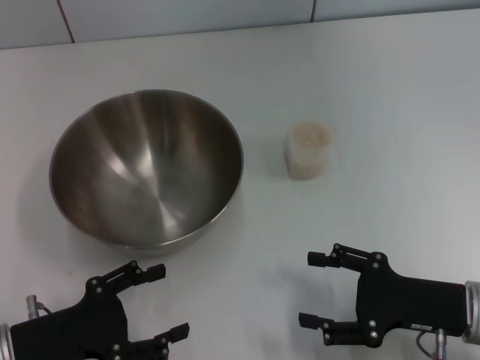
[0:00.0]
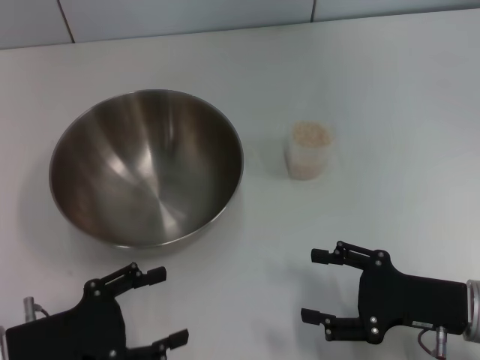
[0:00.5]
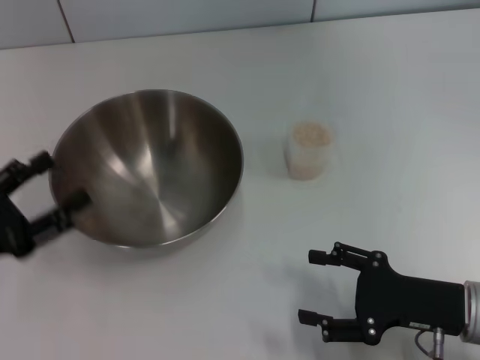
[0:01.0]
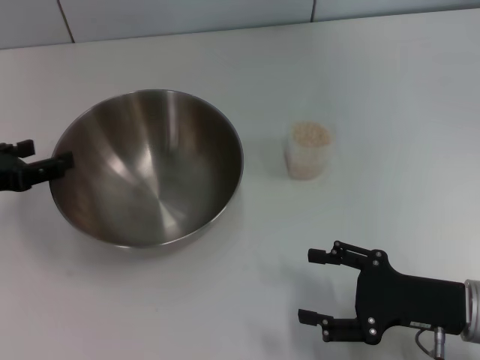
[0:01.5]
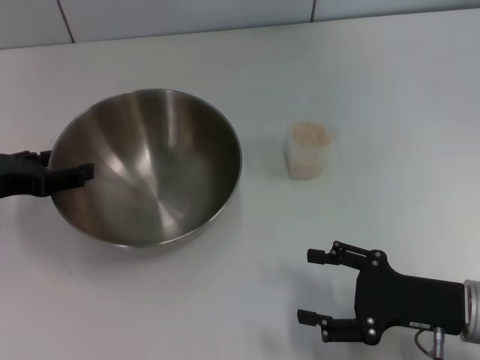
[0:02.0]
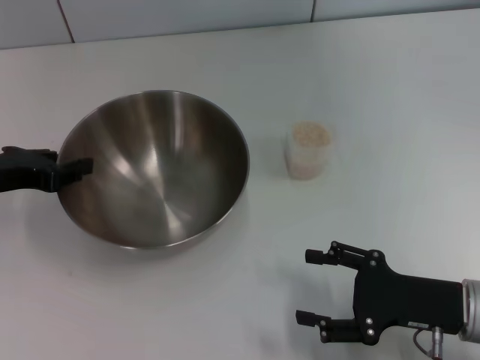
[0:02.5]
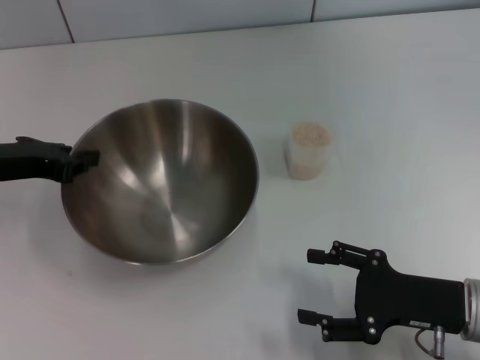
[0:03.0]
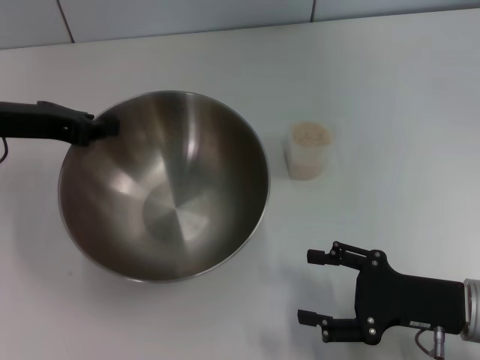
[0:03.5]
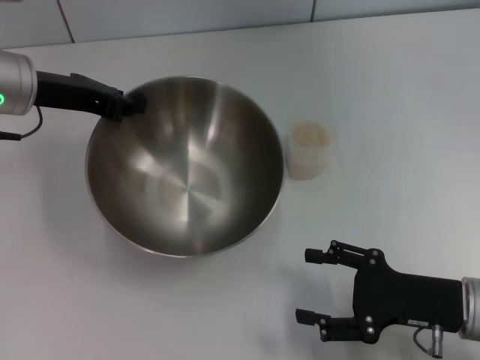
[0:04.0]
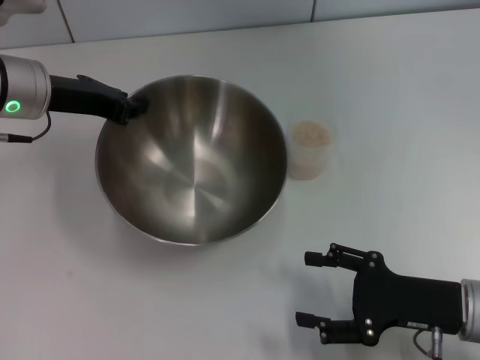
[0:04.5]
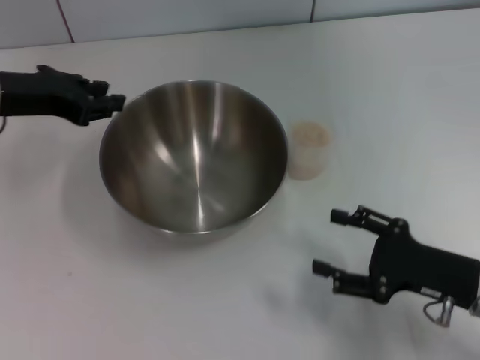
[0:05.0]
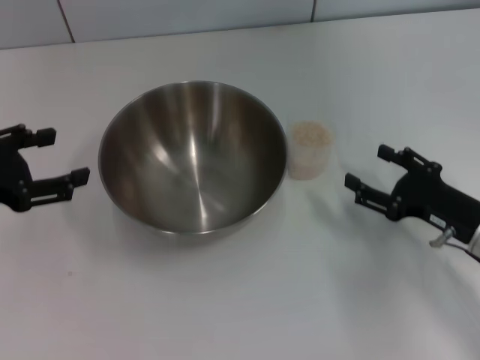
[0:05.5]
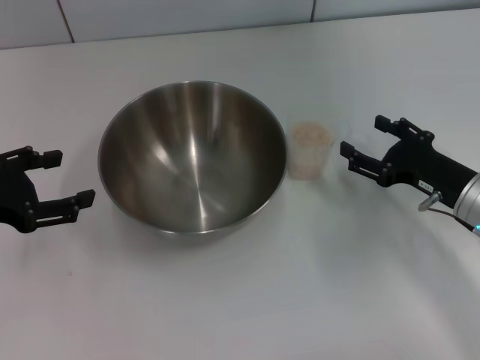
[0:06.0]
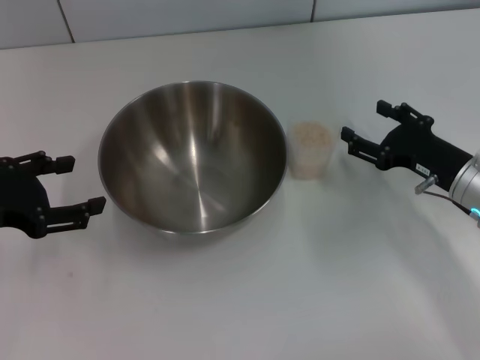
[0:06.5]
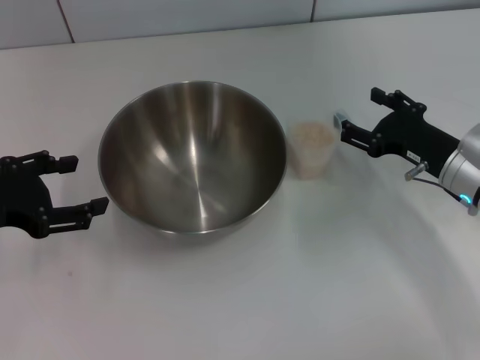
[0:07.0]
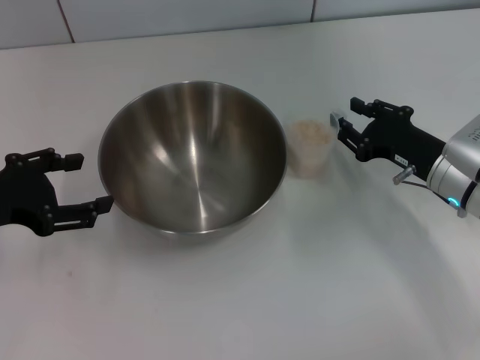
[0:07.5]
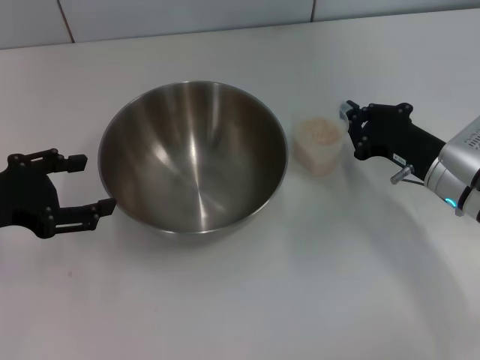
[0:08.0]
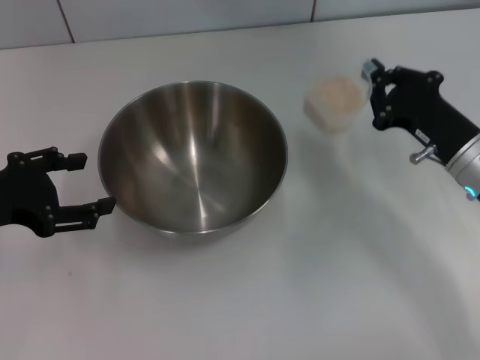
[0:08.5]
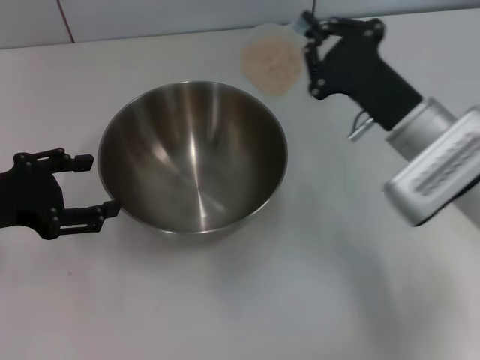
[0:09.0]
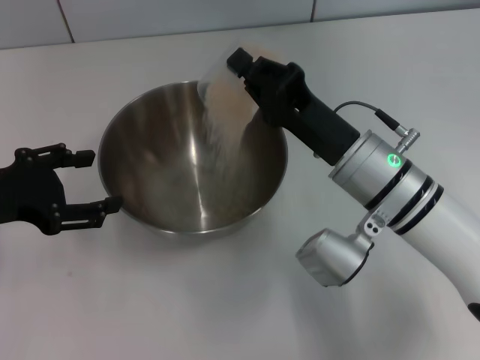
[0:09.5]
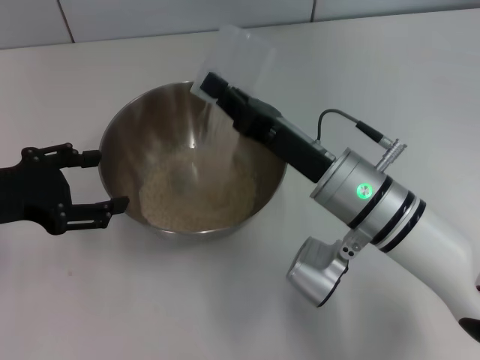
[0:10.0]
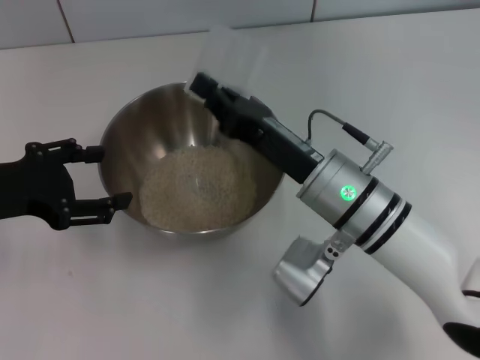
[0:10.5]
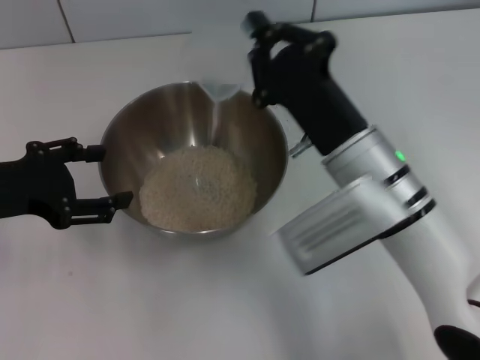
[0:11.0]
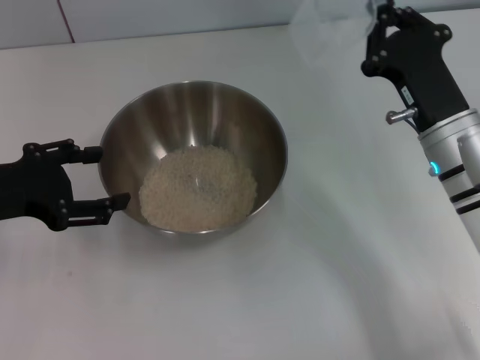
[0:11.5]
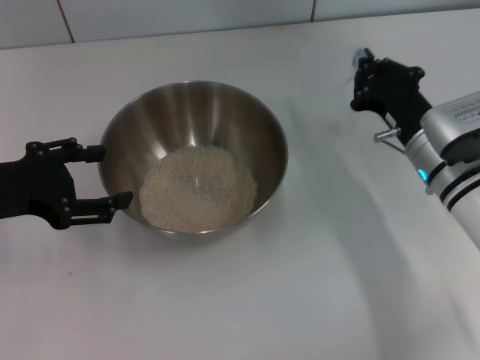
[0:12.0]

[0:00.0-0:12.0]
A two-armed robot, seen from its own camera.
Task of the whole recording: Place the bowl in the middle of the table with one hand and pour the rice from the grain cup into it with the other hand.
Step, 0:00.0 to 0:03.5: Pick up the bowl with the left gripper.
Step, 0:04.0 to 0:05.0: Place the bowl in the center of view with the left gripper.
Step, 0:05.5 to 0:08.5: Pick up the cup with rice in it with the right gripper.
Step, 0:09.0 to 0:11.0: Pour the rice from the cup into the bowl with the right gripper.
0:00.0 to 0:02.0: The left gripper goes roughly 15 cm forward and upward.
0:02.0 to 0:04.0: The left gripper moves forward, to the right and upward, approximately 15 cm, and closes.
0:04.0 to 0:06.0: The right gripper goes some 10 cm forward. Meanwhile the left gripper shifts roughly 15 cm backward and to the left, and opens.
0:06.0 to 0:08.0: The right gripper closes up.
0:08.0 to 0:10.0: The right gripper goes approximately 15 cm to the left.
0:10.0 to 0:12.0: The right gripper is displaced to the right by some 10 cm.

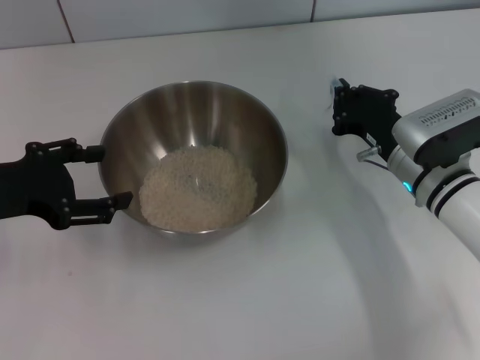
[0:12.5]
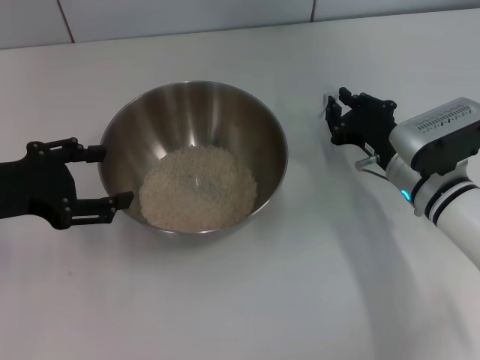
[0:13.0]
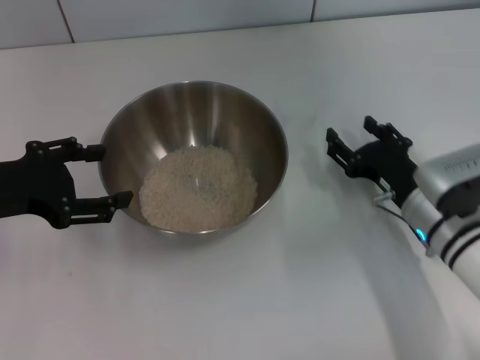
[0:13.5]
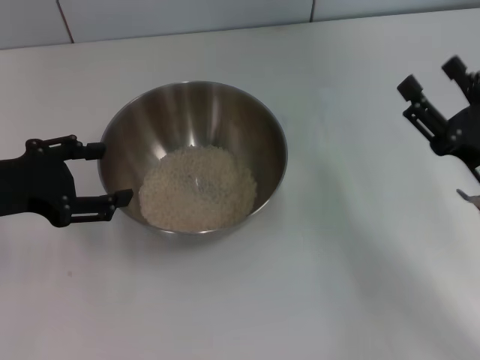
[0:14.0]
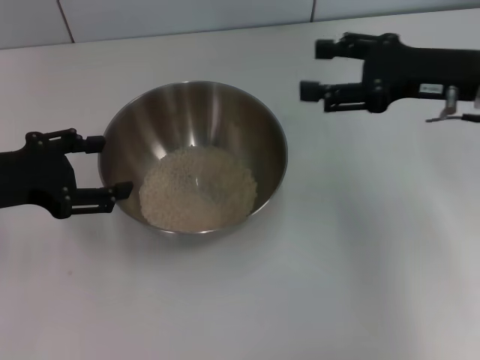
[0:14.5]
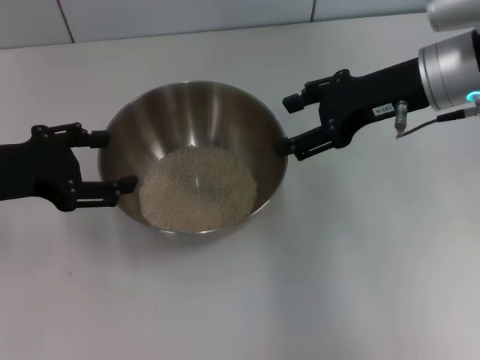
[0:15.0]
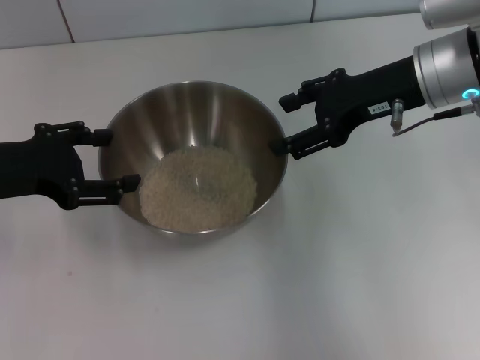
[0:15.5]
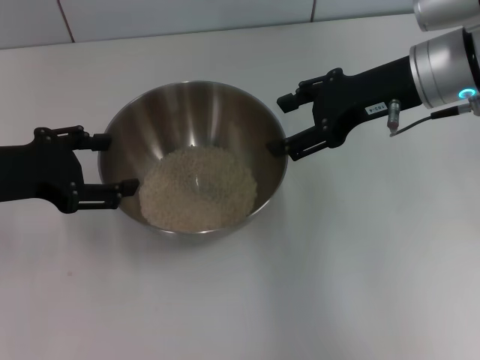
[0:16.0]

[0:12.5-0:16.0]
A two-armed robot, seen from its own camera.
Task of the whole recording: Place the bowl in the middle of the table with one hand and pour the rice from the grain cup into it with the other hand.
0:12.5 to 0:14.5: The right gripper is displaced upward by approximately 15 cm, and opens its fingers.
0:14.5 to 0:16.0: The right gripper heads to the left, covering approximately 5 cm.
